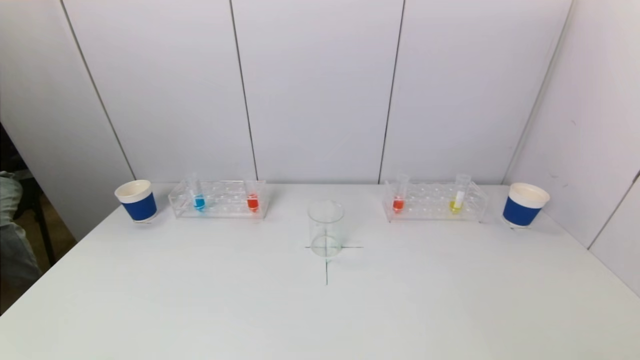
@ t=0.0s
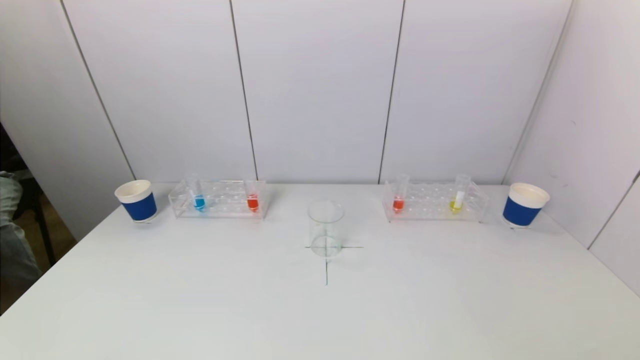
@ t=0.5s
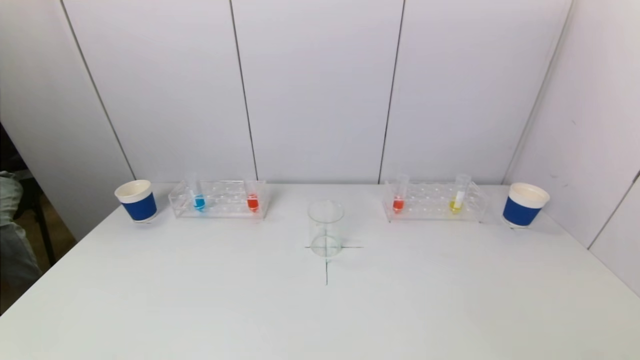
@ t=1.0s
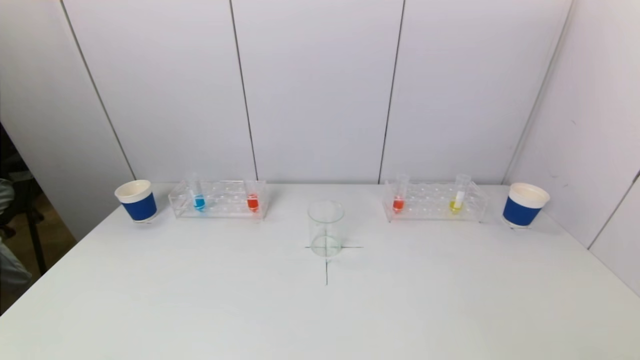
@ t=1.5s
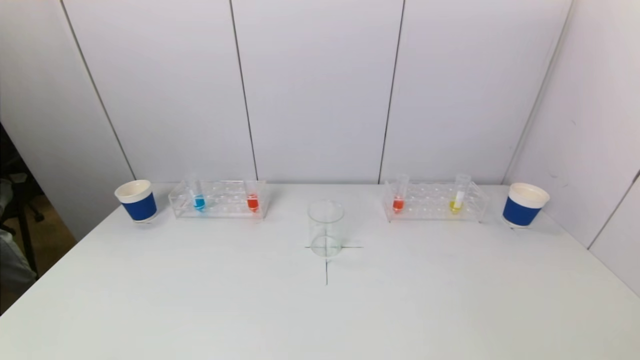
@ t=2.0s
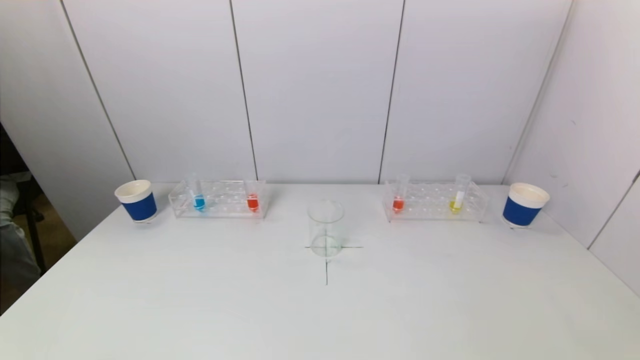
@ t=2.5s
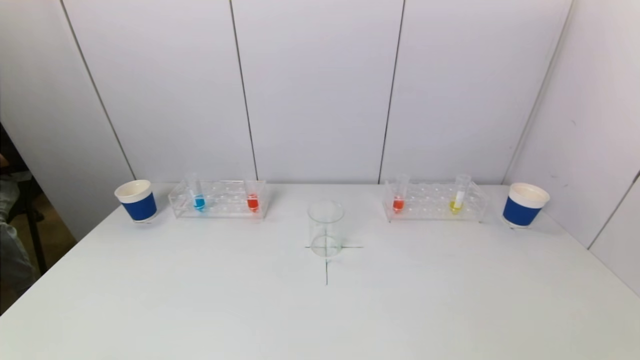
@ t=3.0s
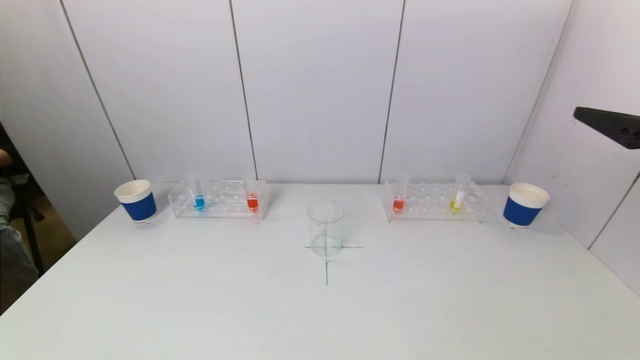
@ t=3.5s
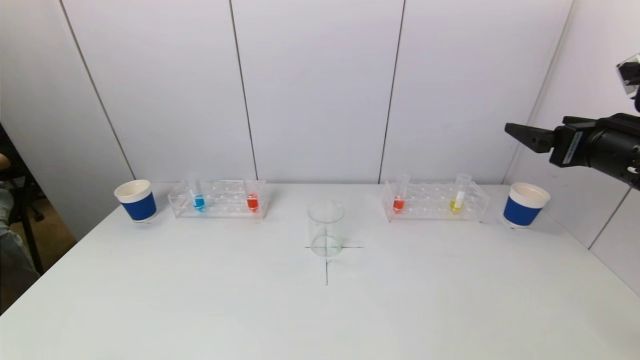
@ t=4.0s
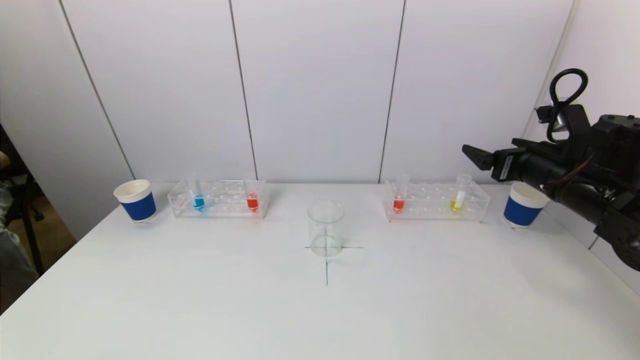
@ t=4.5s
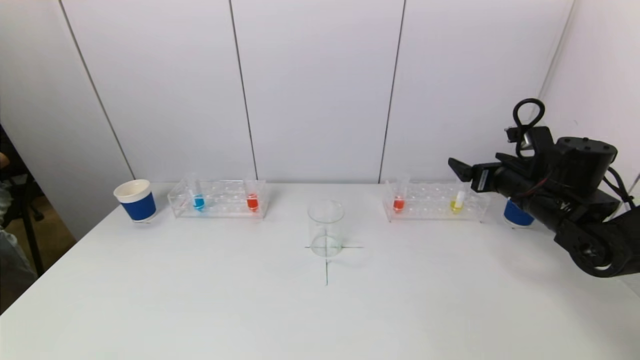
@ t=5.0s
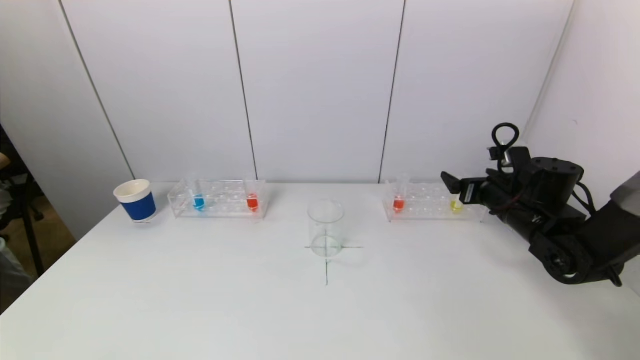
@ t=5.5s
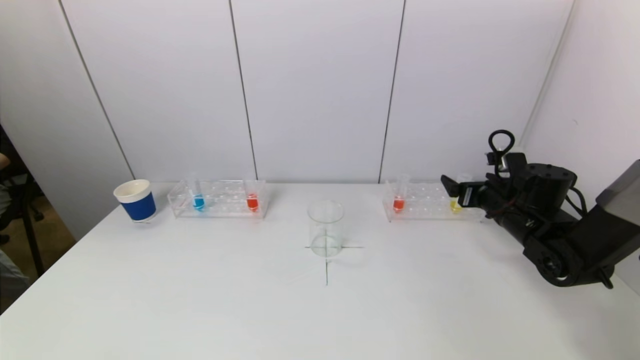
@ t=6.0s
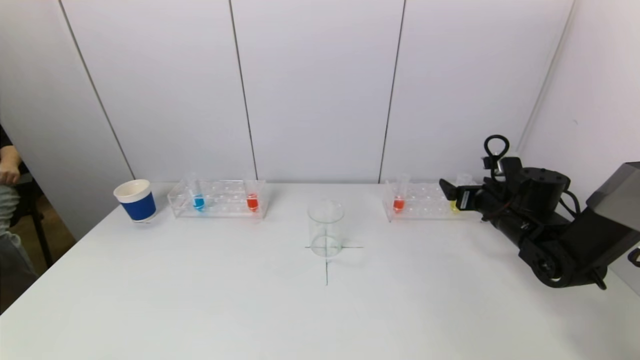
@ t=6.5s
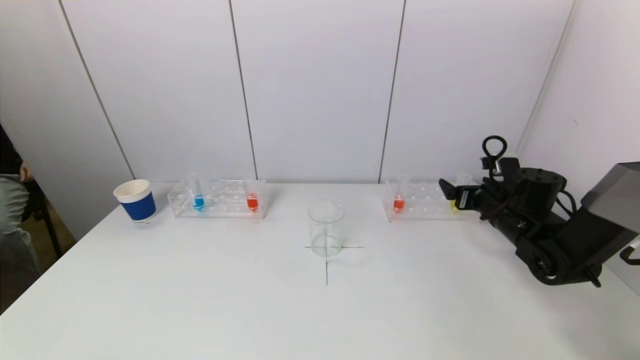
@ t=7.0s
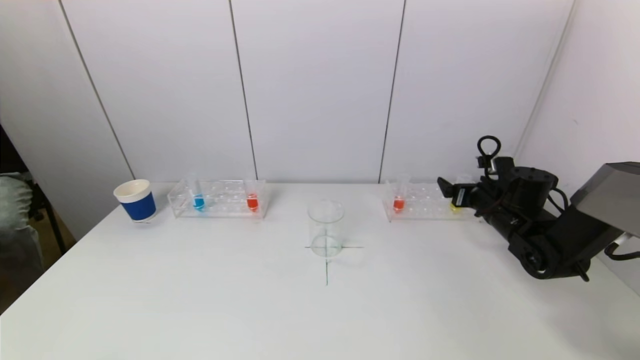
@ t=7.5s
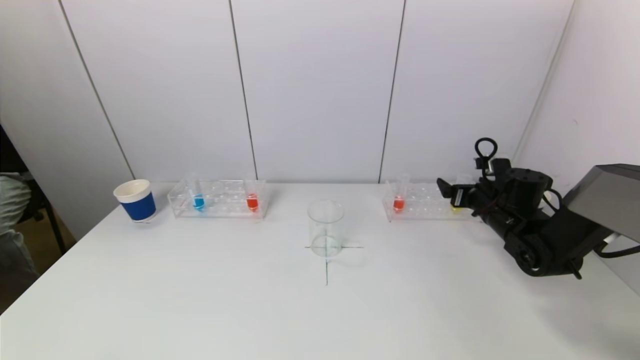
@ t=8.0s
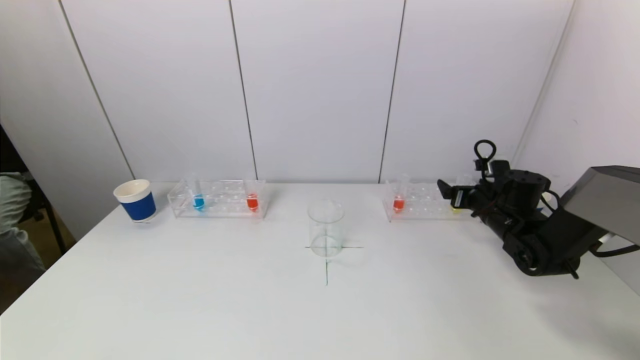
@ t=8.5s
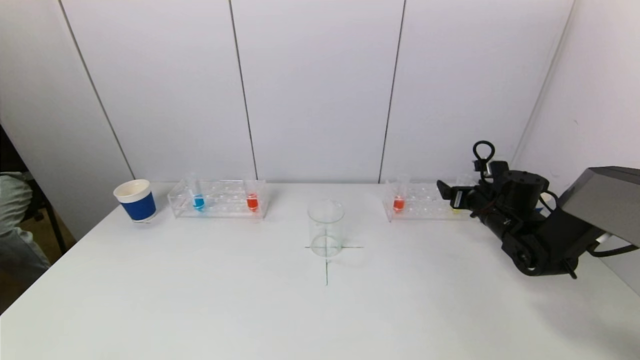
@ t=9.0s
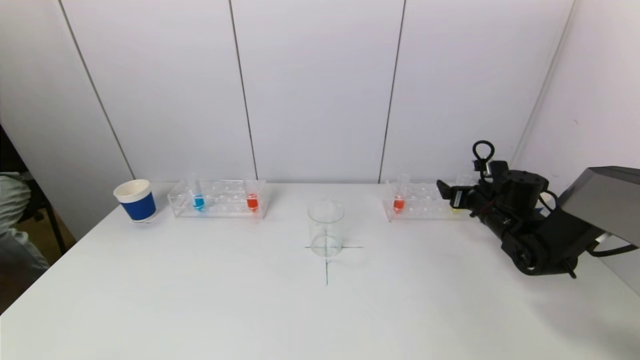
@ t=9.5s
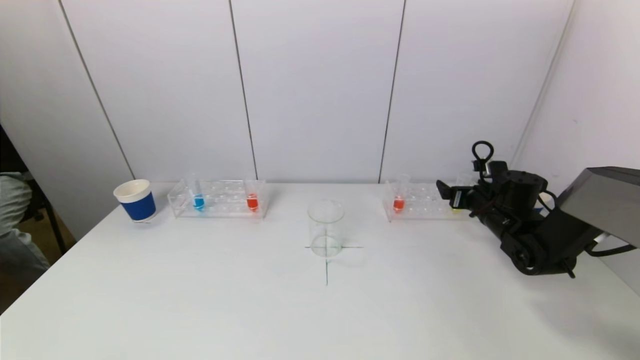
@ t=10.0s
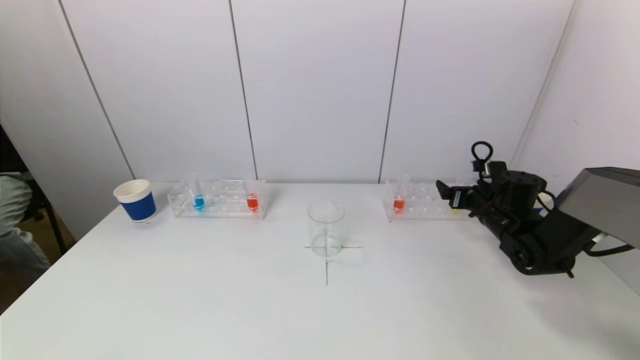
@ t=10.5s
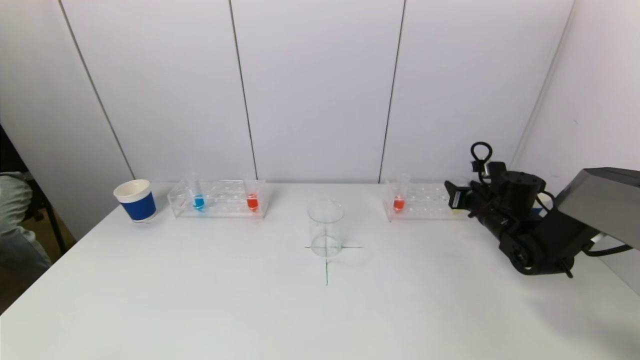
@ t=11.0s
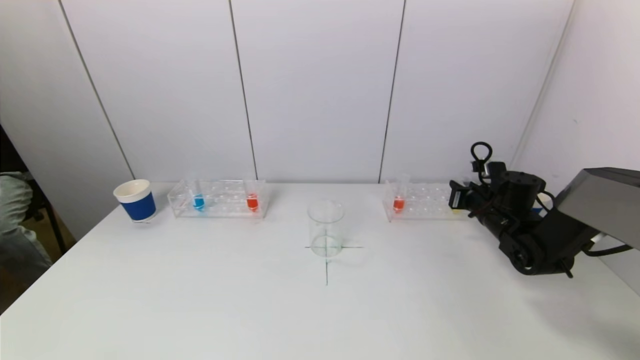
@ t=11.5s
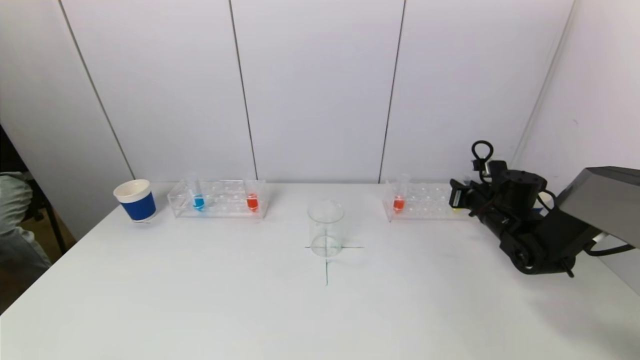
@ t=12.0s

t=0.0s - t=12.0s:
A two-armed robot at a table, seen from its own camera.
Task of the whole recording: pick up a test tube with pigment on left test tube rack and a test tube with pigment on right test tube rack by grippers and pour them into the beaker.
Step, t=0.0s - t=11.0s: Grasp the yellow reagent with the right gripper.
t=2.0s - t=4.0s: The right gripper goes roughly 30 cm forward.
t=4.0s - t=6.0s: The right gripper heads downward and forward, covering about 20 cm.
t=6.0s - t=8.0s: The grippers make only small movements.
t=8.0s - t=10.0s: Both grippers stay about where they are.

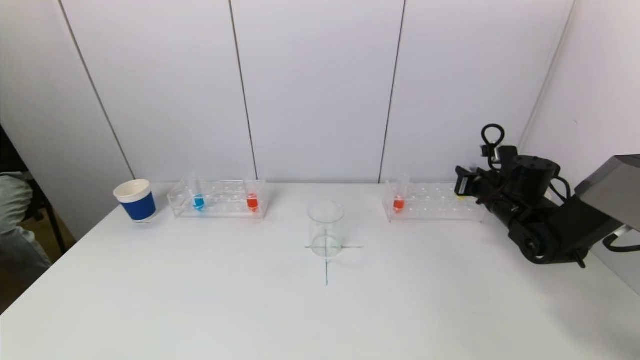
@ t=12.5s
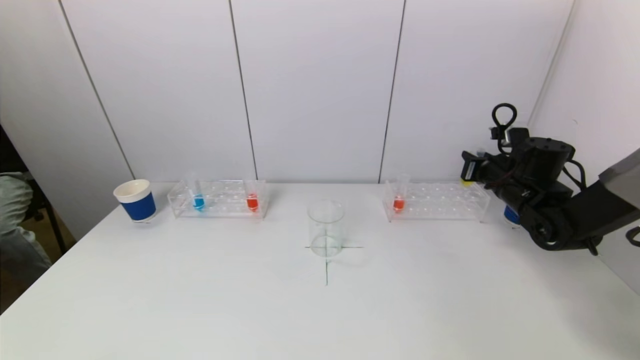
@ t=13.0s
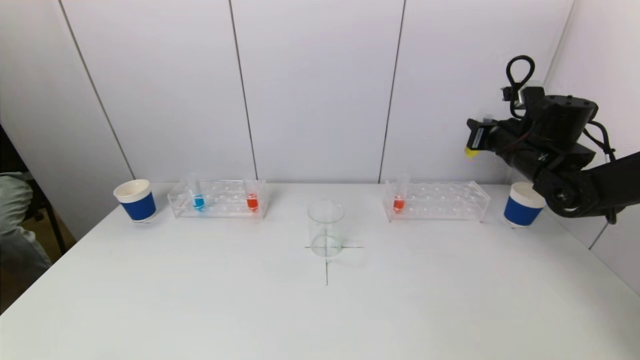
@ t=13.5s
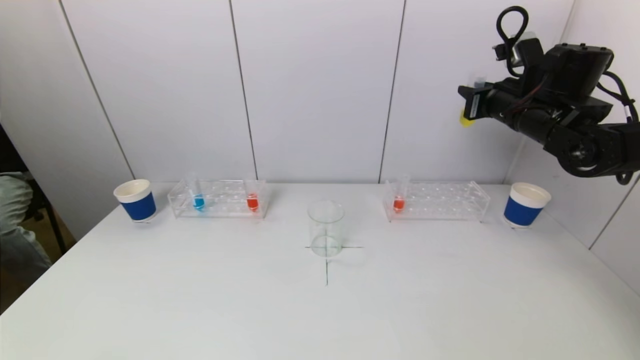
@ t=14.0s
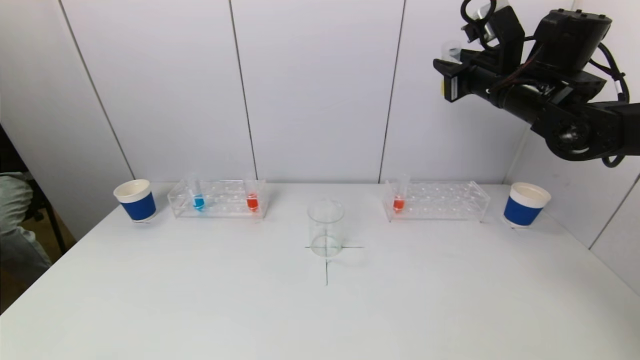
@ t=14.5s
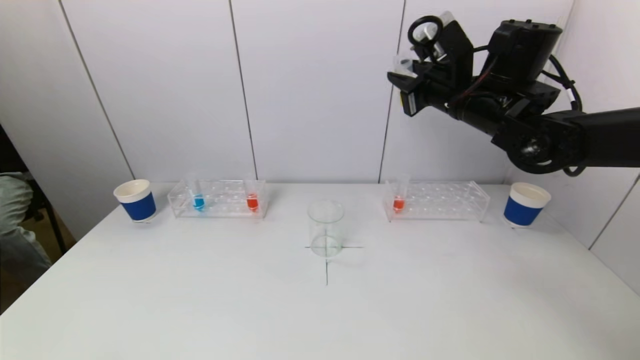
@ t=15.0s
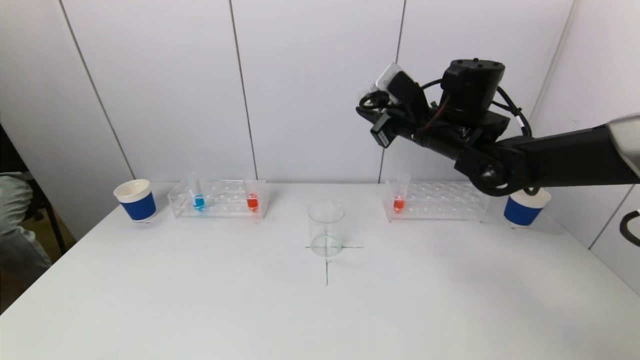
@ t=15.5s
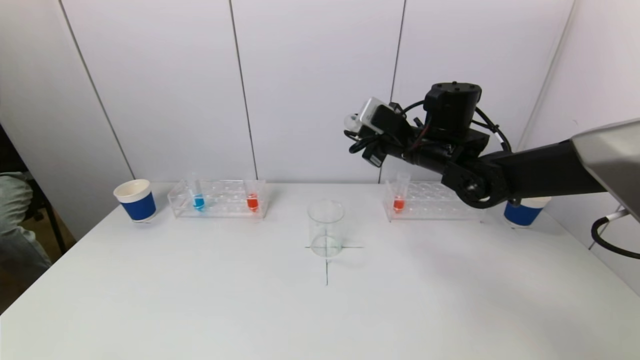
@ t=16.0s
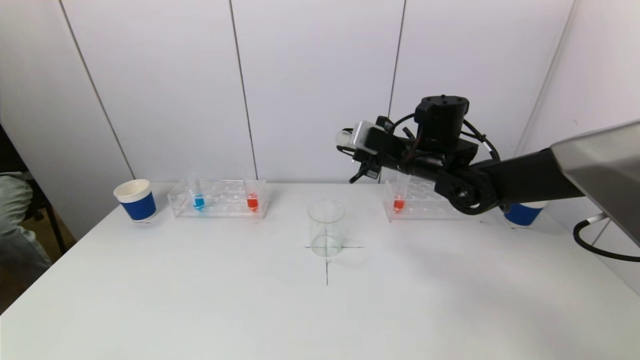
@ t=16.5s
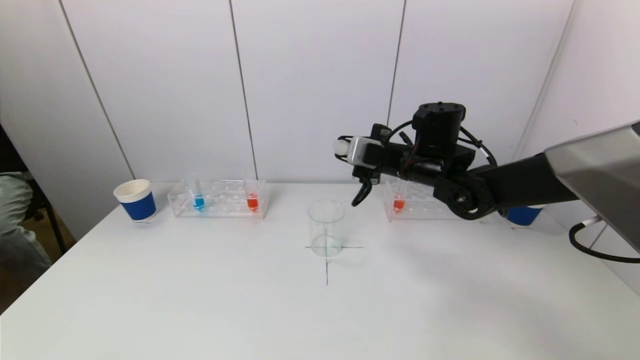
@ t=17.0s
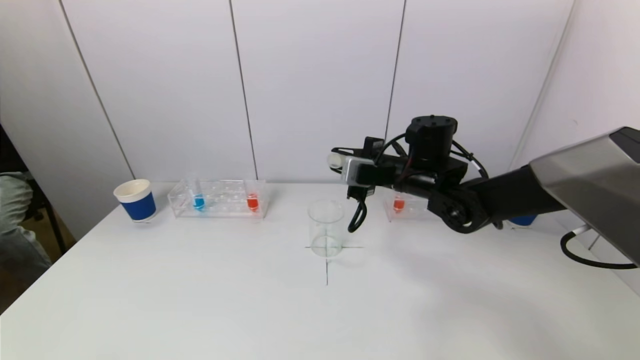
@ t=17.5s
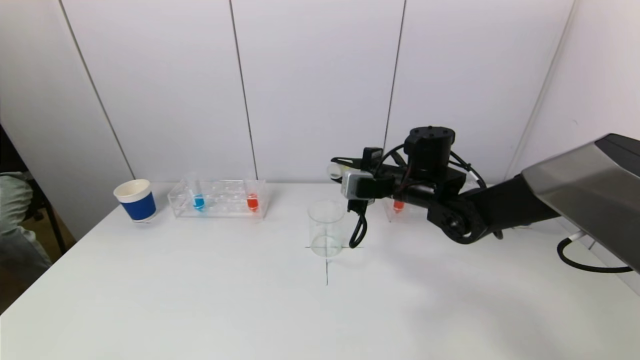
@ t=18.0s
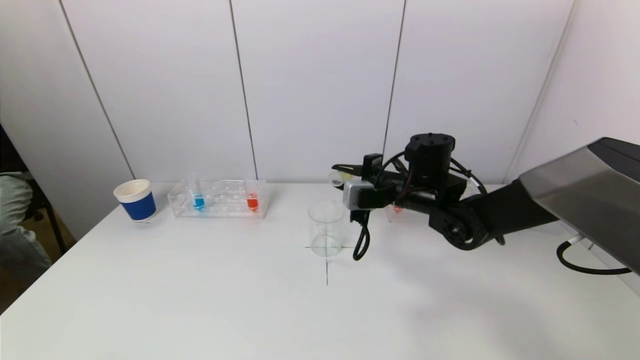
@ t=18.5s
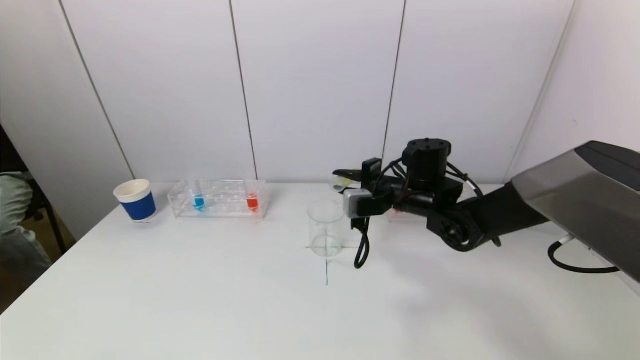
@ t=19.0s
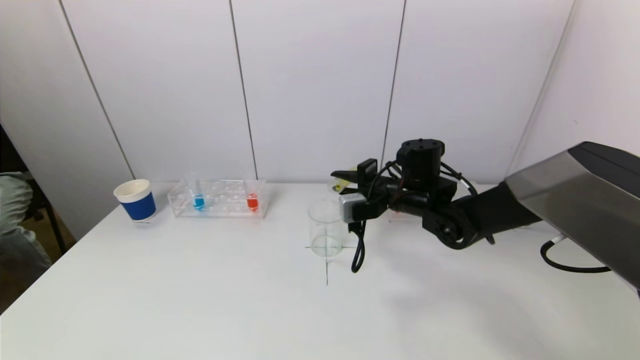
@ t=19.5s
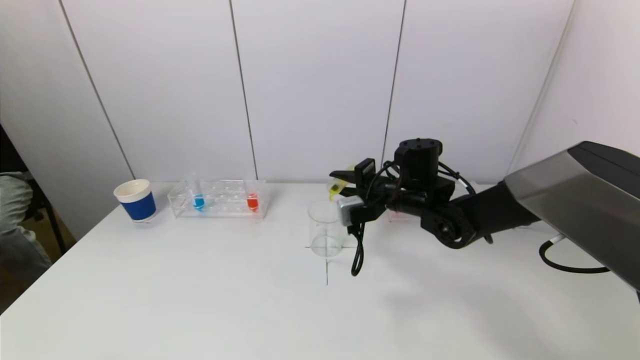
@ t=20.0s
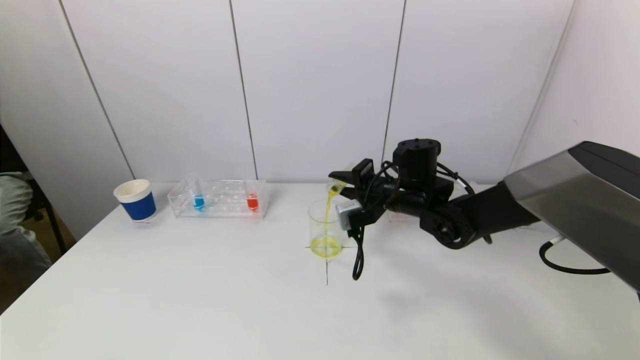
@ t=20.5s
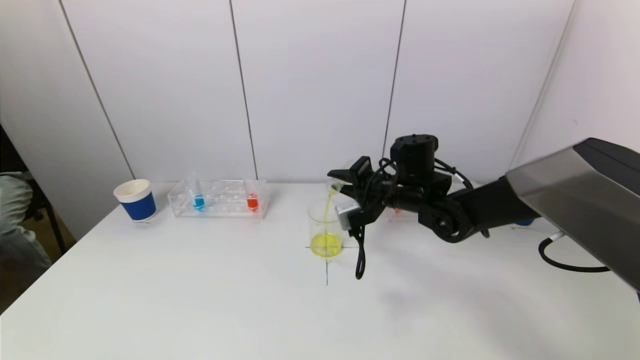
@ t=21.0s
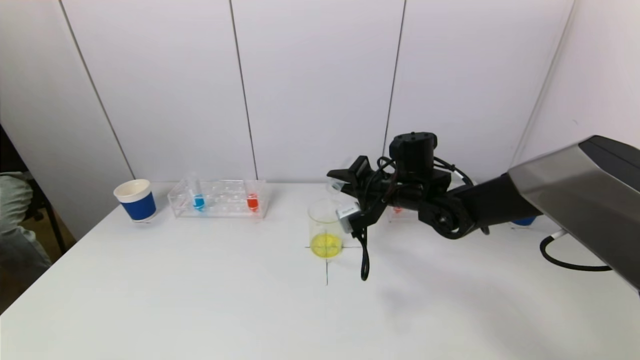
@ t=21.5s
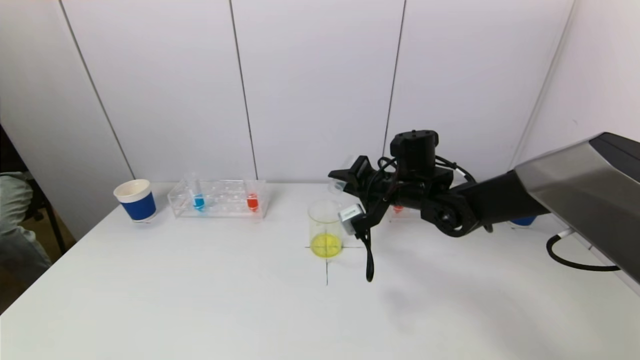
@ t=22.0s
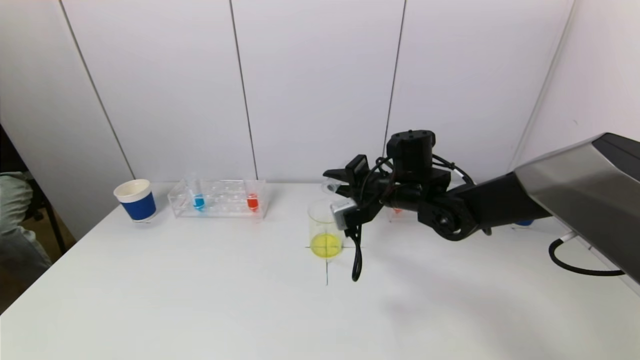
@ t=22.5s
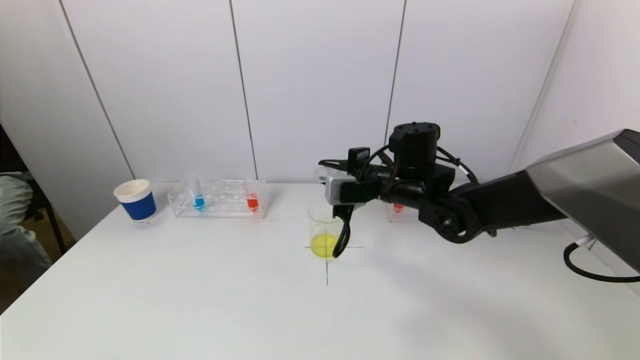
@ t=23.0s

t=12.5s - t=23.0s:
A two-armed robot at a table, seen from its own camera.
Task of the whole recording: pick up a test tube with pigment on left test tube rack and a test tube with pigment on right test tube rack by grippers and pour them into the beaker.
Step, t=12.5s - t=23.0s: Pour the yellow reagent into the graduated cylinder with the right gripper.
t=12.5s - t=14.5s: The right gripper goes roughly 20 cm upward.
t=14.5s - t=16.5s: The right gripper shifts about 15 cm downward and to the left.
t=16.5s - t=19.0s: The right gripper is displaced downward by roughly 5 cm.
